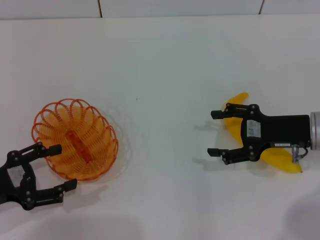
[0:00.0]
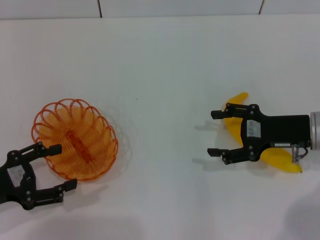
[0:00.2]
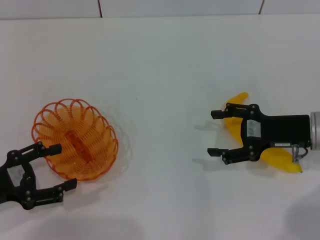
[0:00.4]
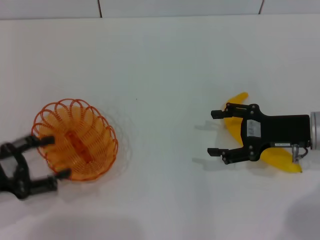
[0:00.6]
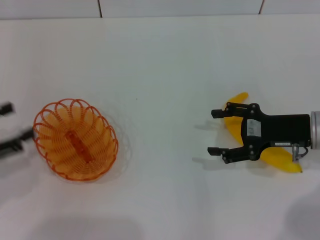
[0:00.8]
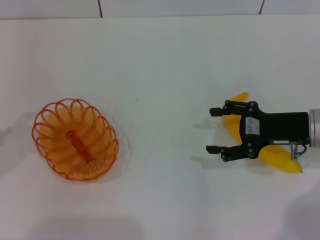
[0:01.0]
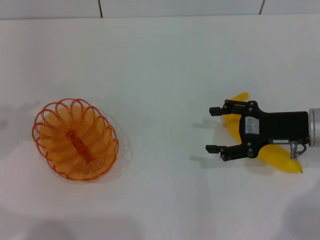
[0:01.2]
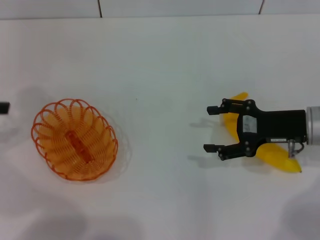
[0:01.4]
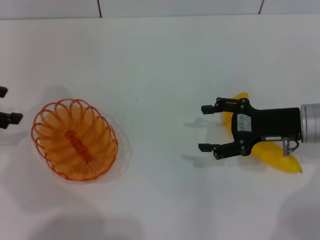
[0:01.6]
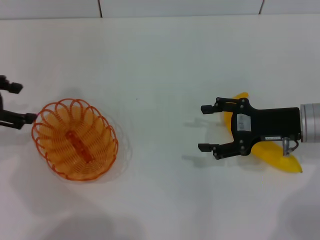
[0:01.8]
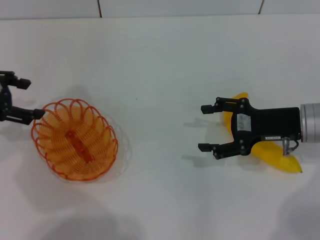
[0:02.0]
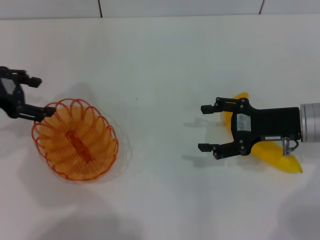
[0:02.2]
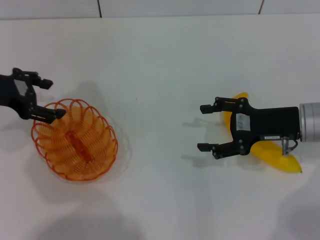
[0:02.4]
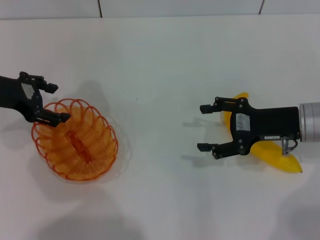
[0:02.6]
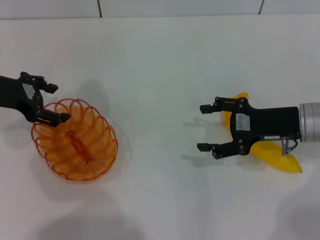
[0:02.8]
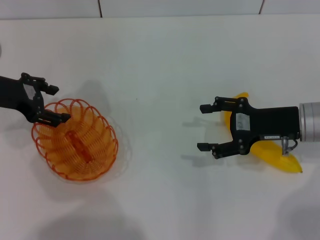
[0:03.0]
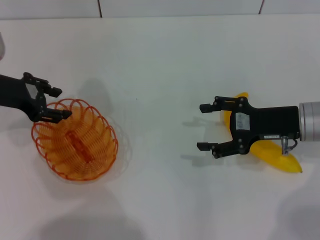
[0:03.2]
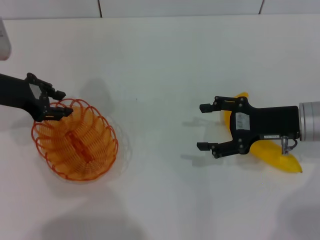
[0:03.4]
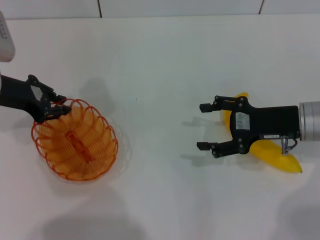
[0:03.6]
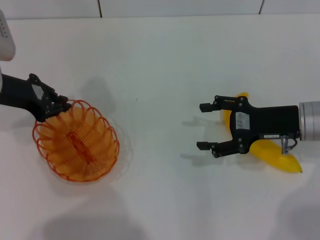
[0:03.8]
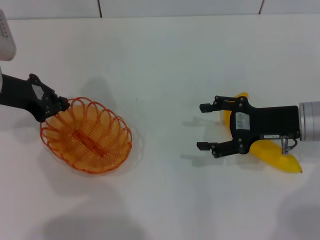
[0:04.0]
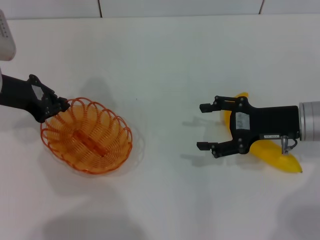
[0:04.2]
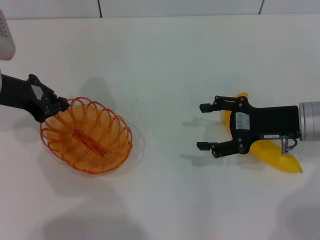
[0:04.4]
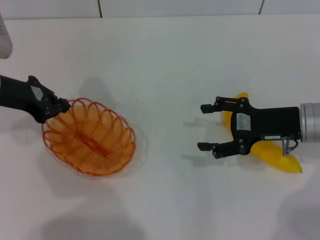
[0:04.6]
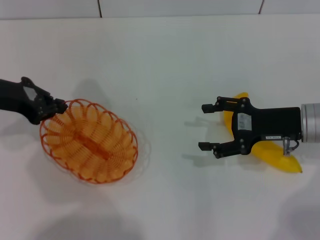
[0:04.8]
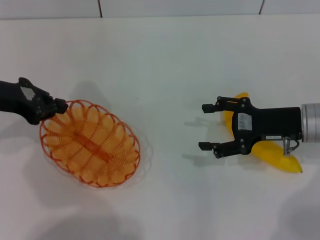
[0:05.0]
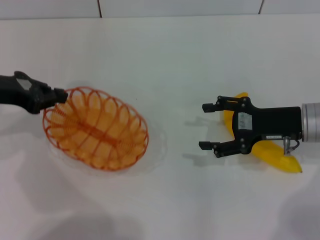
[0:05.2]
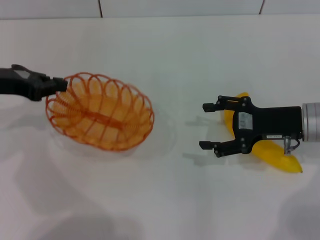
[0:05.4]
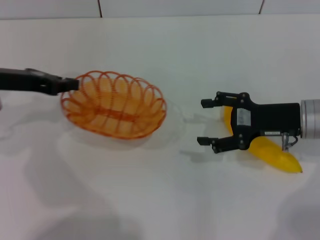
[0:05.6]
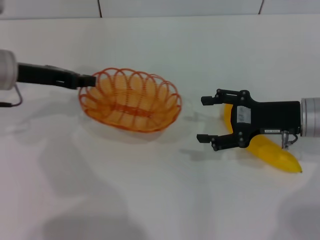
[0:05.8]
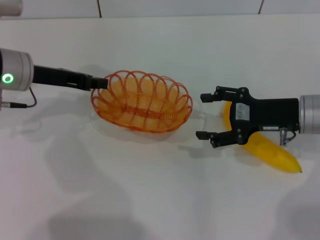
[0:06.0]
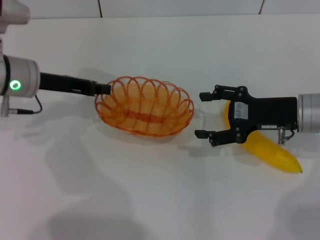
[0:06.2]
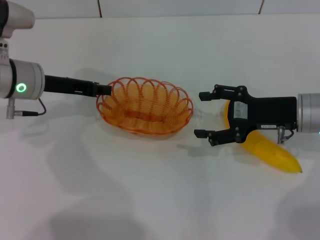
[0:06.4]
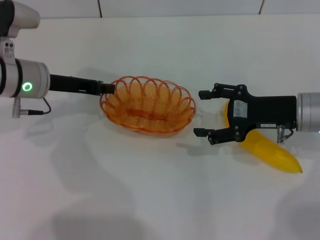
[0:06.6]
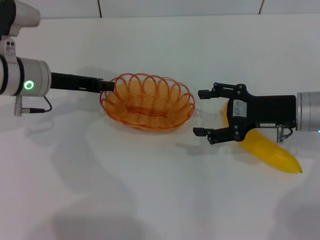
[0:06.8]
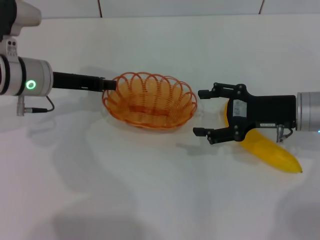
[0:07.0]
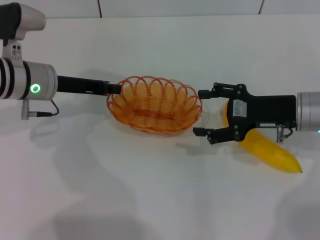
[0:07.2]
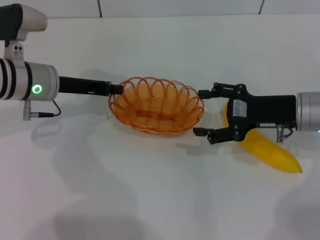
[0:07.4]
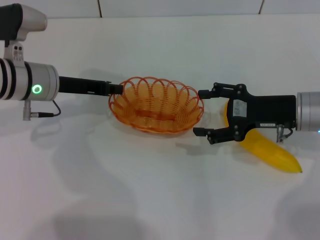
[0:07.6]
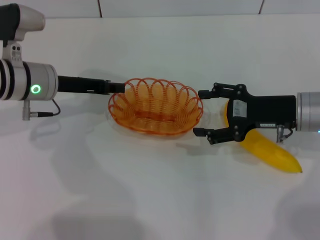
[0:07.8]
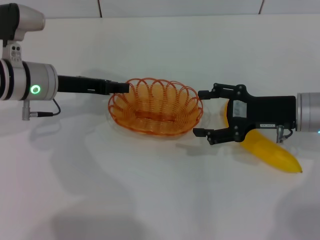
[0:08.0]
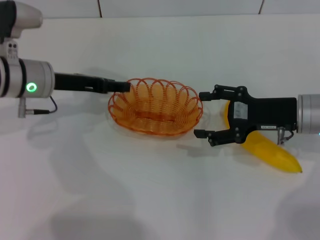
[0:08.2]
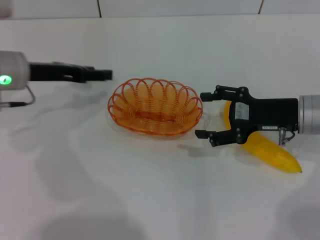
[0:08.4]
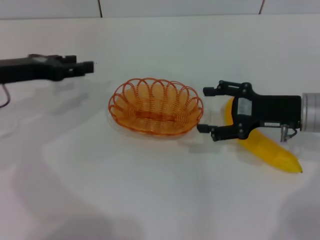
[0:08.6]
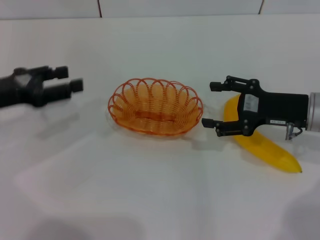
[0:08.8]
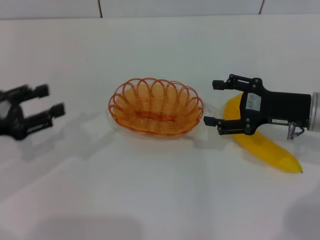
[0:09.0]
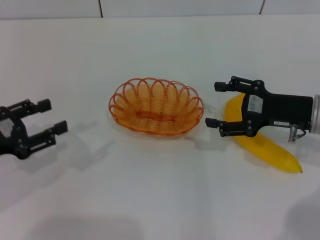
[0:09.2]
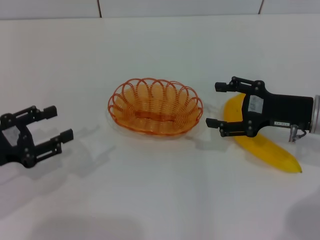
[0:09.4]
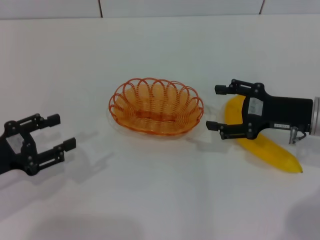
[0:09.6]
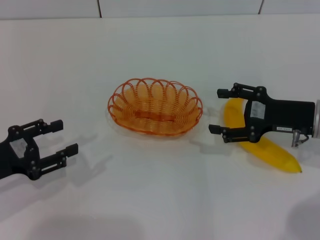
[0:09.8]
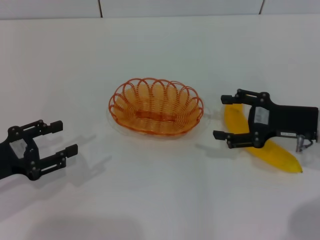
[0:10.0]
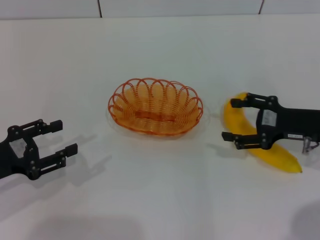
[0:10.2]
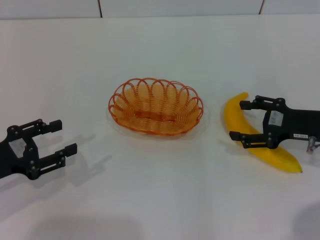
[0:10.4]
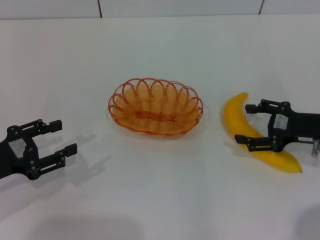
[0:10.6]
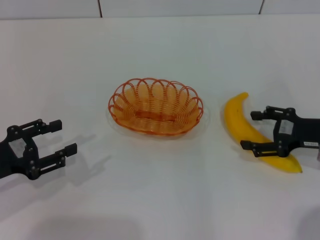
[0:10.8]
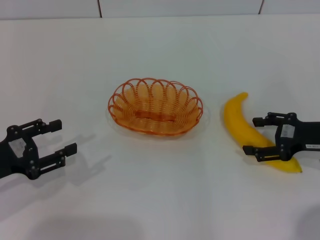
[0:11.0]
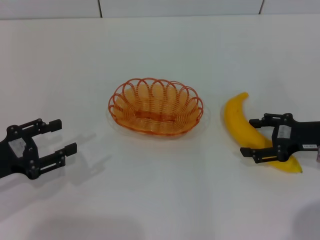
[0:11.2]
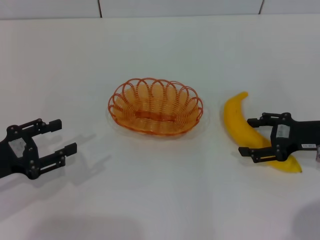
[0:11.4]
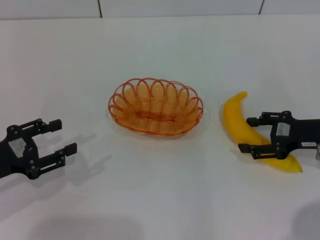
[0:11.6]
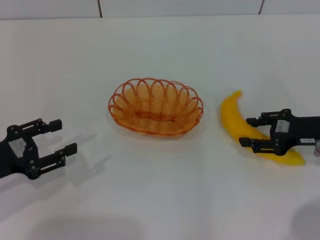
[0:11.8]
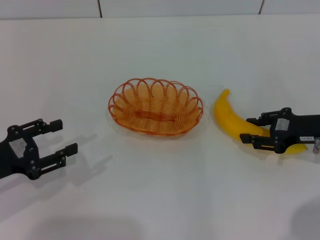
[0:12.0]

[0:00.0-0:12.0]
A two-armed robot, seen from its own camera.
Step, 0:00.0 to 0:05.0: Pick up the basket with the left gripper.
Step, 0:05.2 to 0:08.2: Place the basket in the center of view with the left gripper.
0:00.0 to 0:01.6: The left gripper moves upward and forward, some 20 cm.
0:01.6 to 0:03.0: The left gripper is displaced to the right by about 5 cm.
0:03.0 to 0:04.4: The left gripper closes up.
0:06.0 to 0:07.6: The grippers stay close to where they were, moving slightly.
0:07.6 to 0:09.0: The left gripper is displaced to the left and backward by approximately 15 cm, and opens.
0:09.0 to 0:10.4: The left gripper moves some 5 cm.
0:10.4 to 0:12.0: The right gripper closes up.

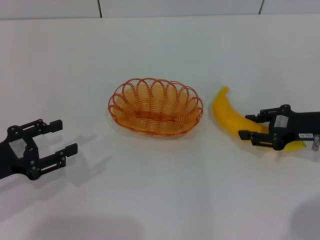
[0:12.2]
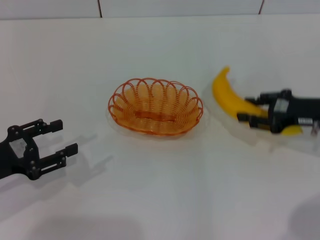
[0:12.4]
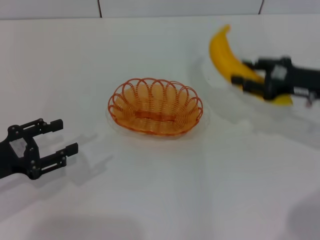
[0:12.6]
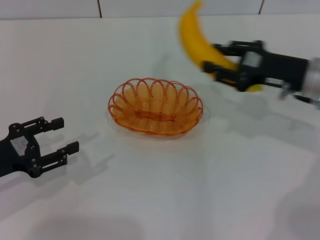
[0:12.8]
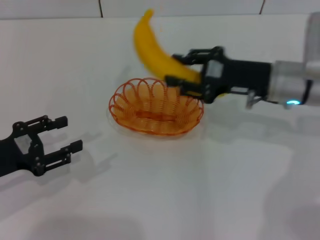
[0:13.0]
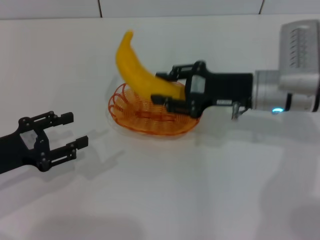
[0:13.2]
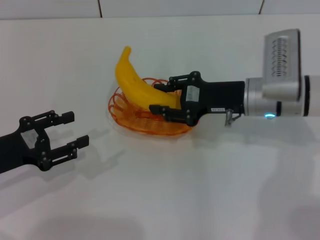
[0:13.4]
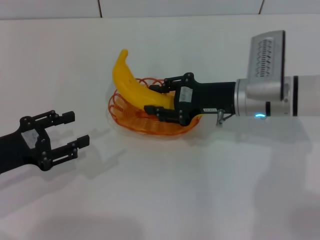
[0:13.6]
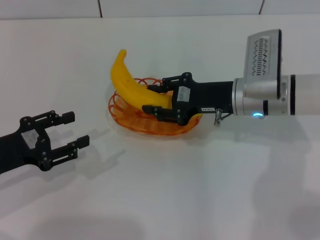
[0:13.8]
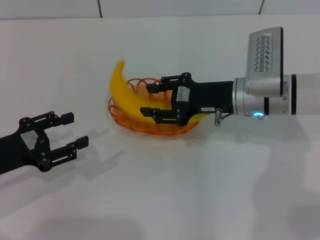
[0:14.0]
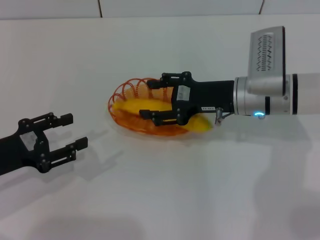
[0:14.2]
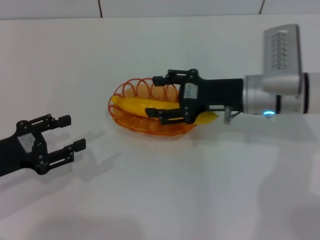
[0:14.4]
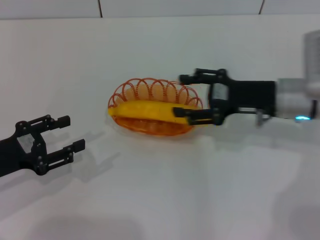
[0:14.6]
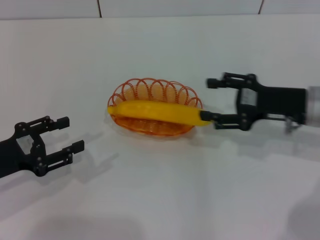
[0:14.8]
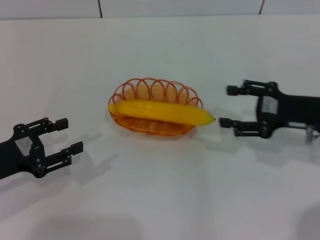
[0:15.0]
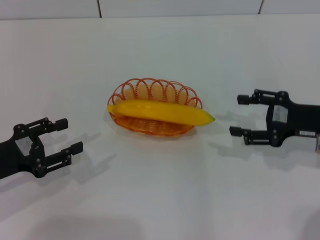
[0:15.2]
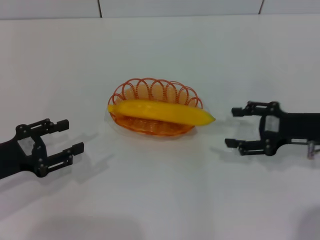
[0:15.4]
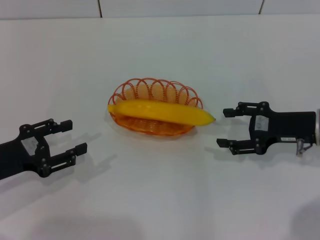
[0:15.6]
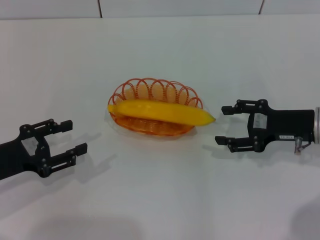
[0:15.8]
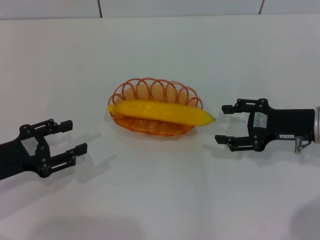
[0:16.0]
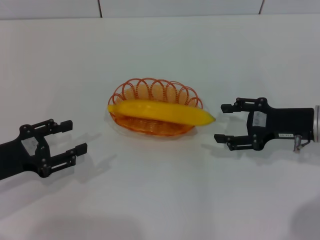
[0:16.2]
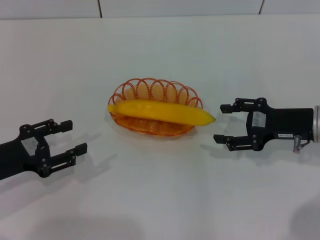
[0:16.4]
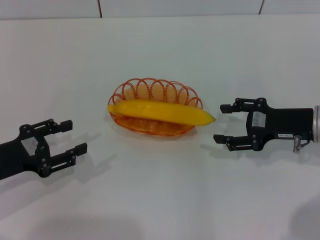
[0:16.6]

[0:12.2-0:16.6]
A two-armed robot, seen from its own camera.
Step, 0:12.6 to 0:14.6: Place the banana into the basket with the right gripper.
0:12.2 to 0:13.6: The right gripper heads to the left, covering some 15 cm.
0:13.6 to 0:15.2: The right gripper is displaced to the right and backward by some 15 cm, and opens.
0:15.2 to 0:16.6: The grippers make only small movements.
